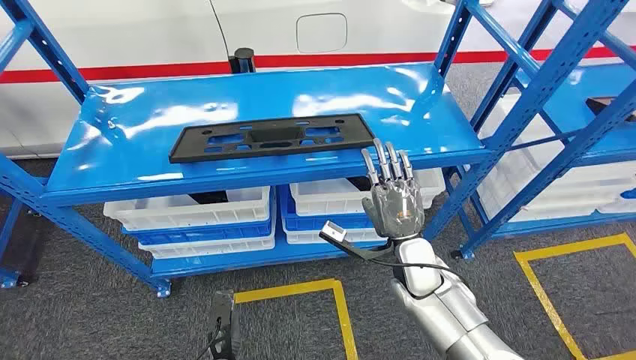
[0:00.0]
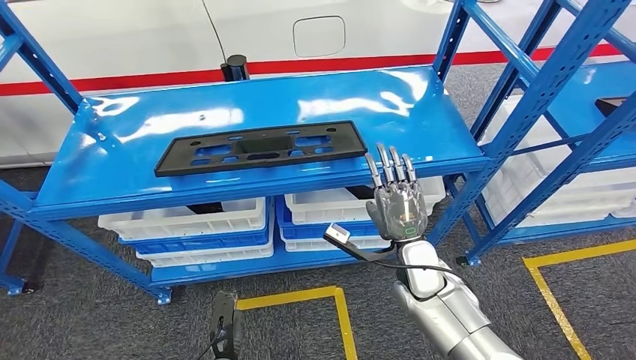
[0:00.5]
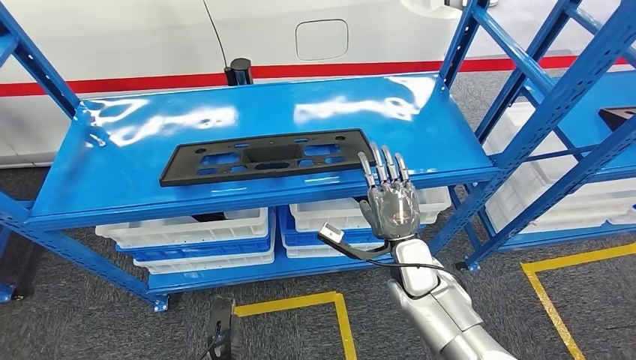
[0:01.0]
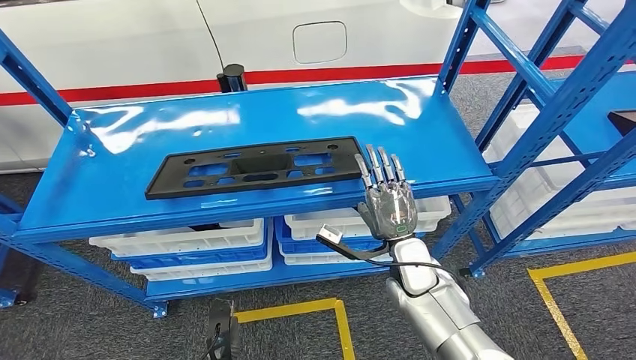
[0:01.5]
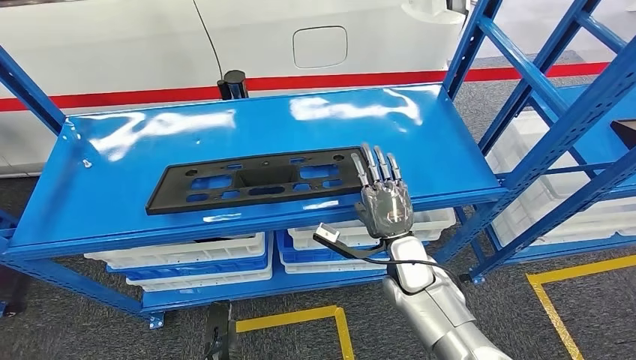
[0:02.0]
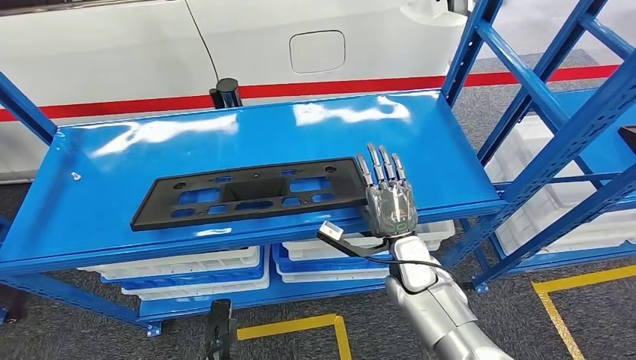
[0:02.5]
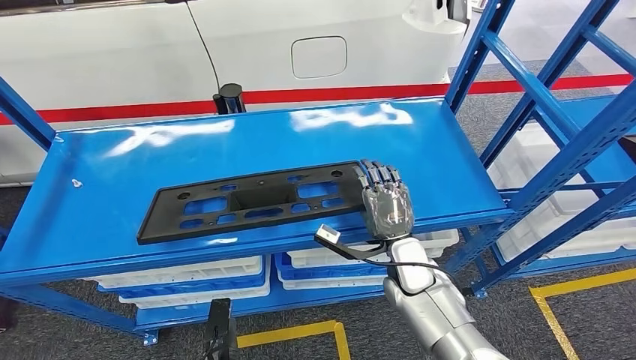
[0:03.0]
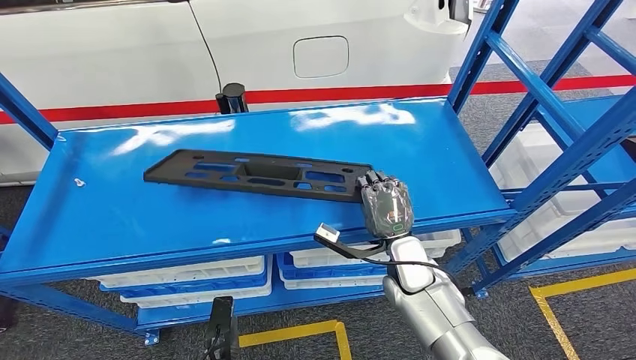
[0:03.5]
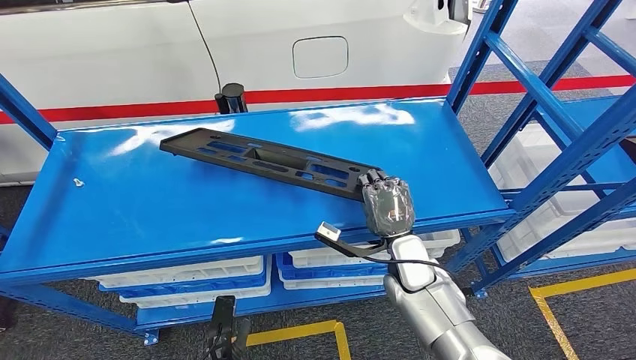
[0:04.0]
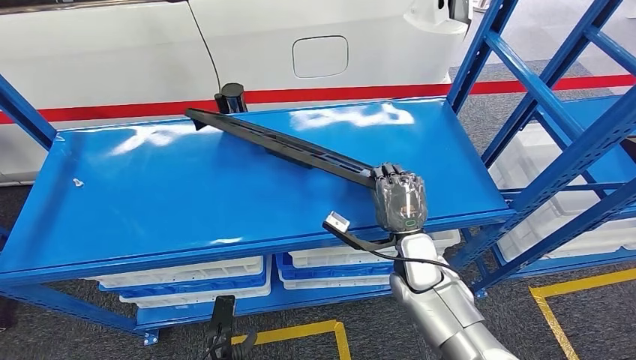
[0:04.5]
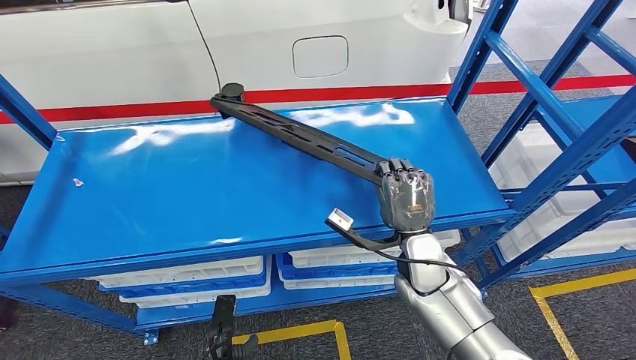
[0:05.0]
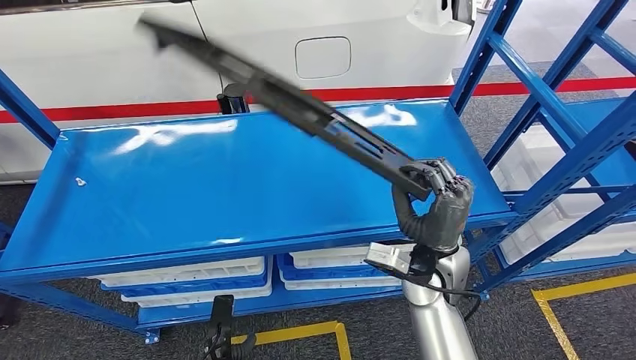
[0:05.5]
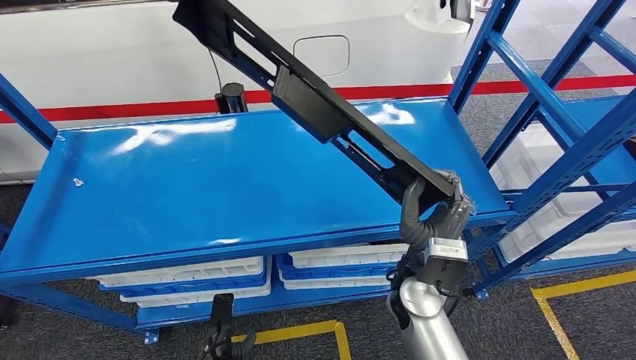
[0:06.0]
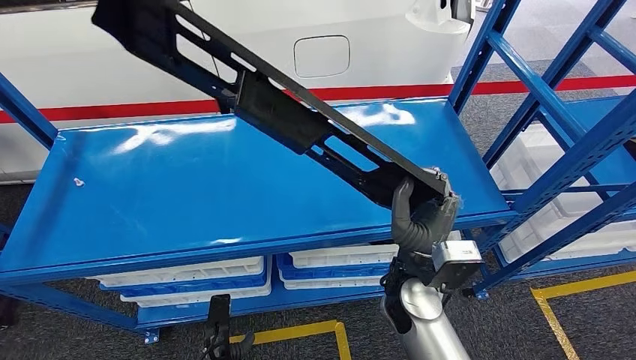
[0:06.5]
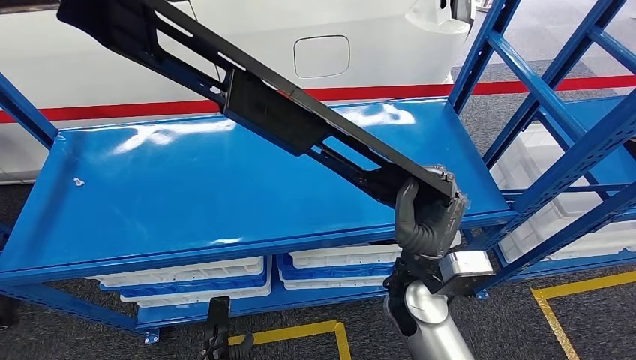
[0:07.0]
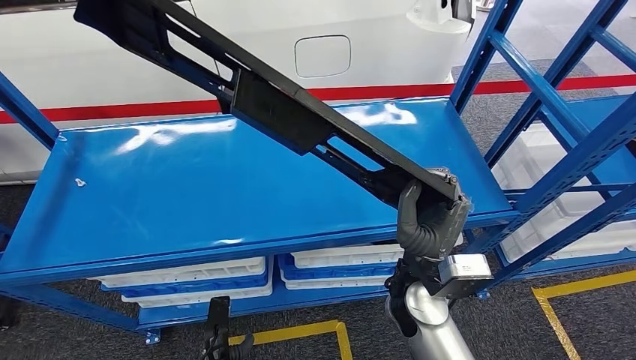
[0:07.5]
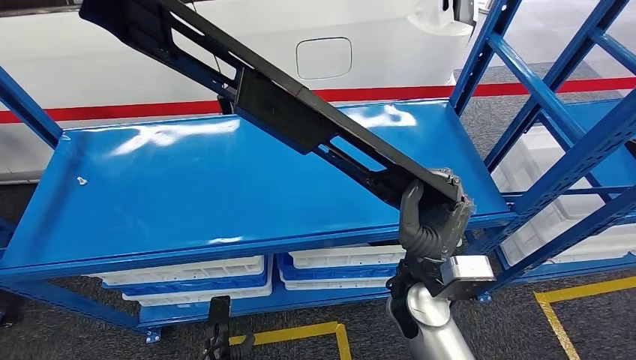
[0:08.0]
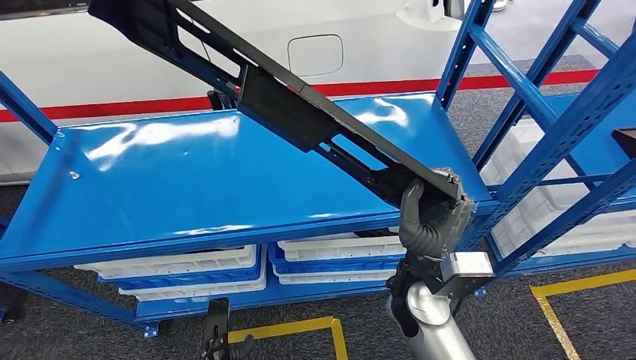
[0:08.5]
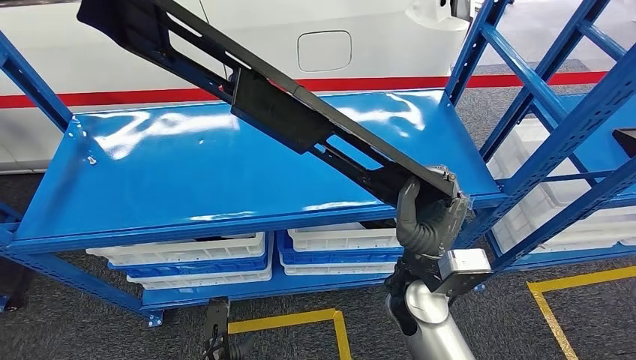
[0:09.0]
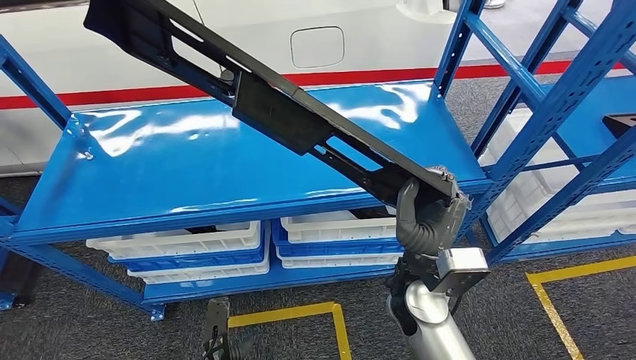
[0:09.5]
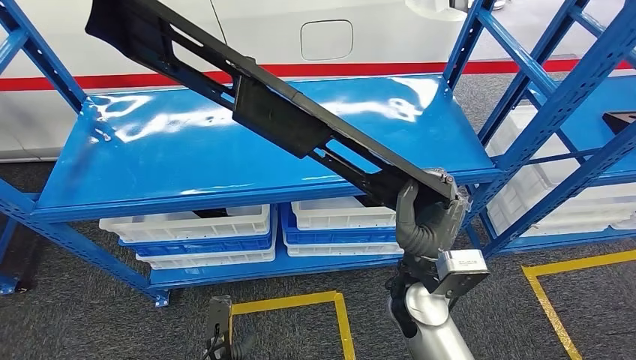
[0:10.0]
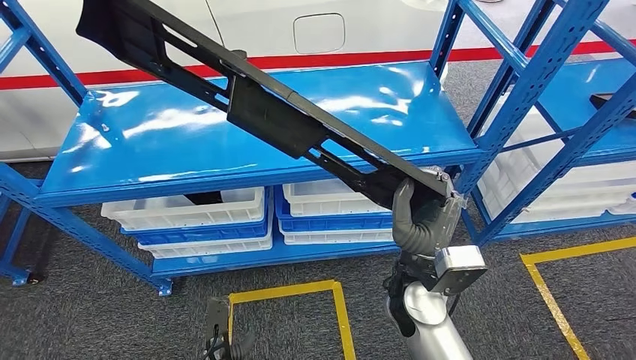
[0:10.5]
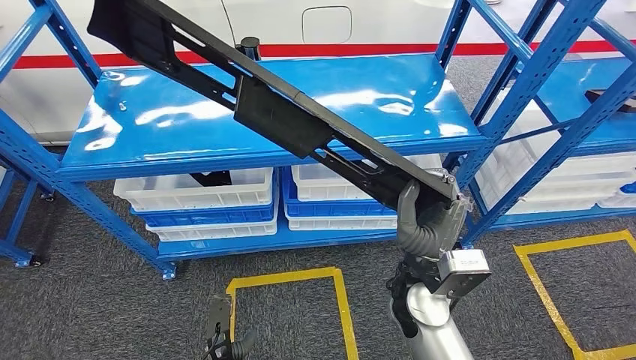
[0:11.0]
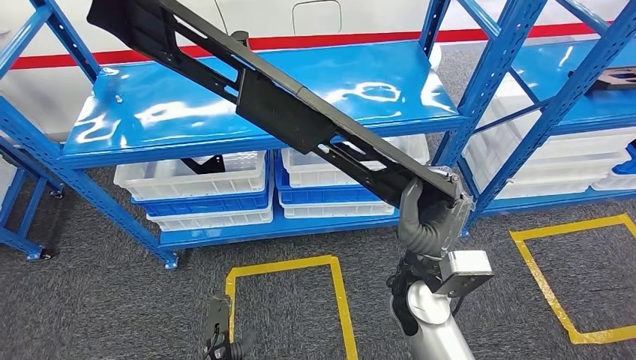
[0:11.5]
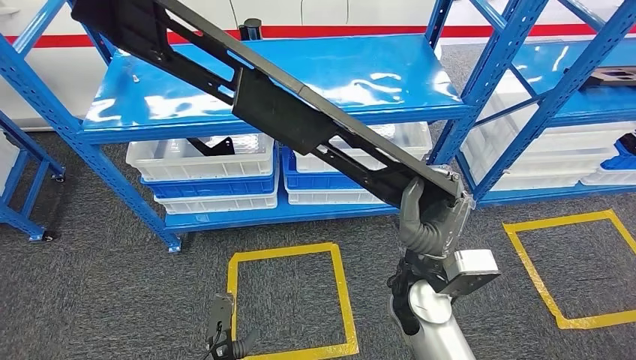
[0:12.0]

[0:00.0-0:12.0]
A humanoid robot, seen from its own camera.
Step, 0:00.0 to 0:08.0: Pick up the large material from the shelf.

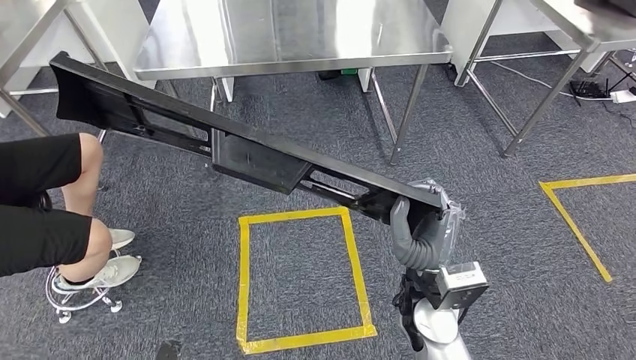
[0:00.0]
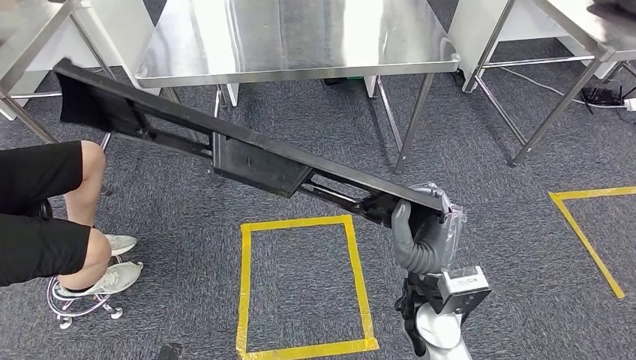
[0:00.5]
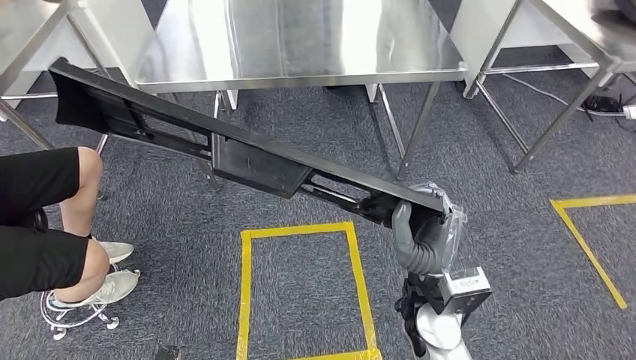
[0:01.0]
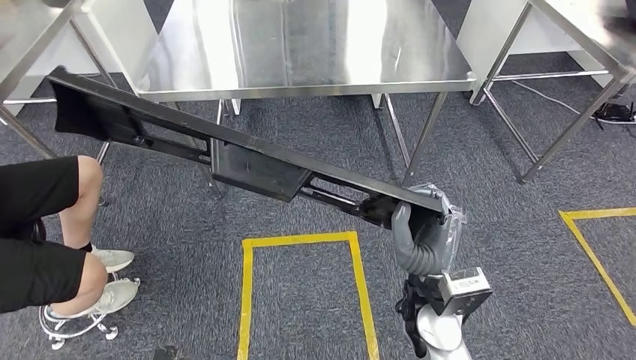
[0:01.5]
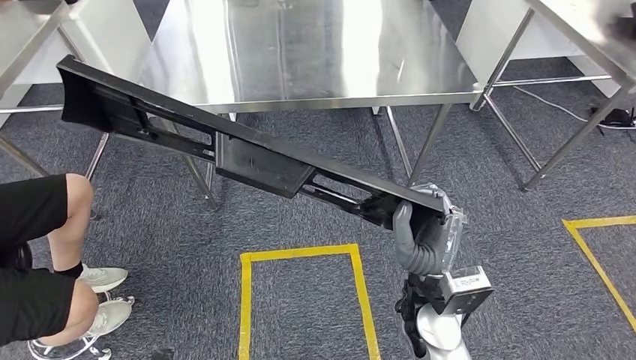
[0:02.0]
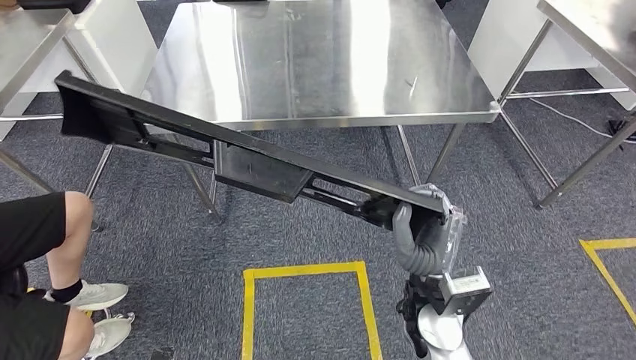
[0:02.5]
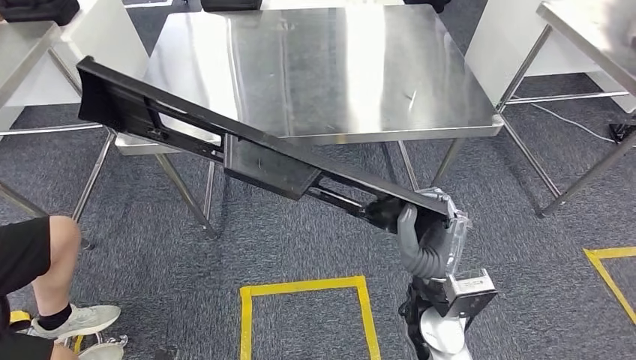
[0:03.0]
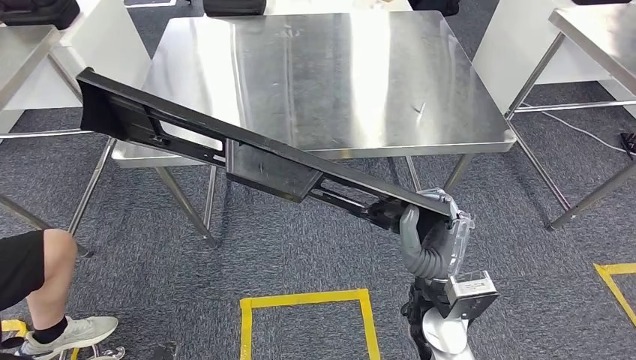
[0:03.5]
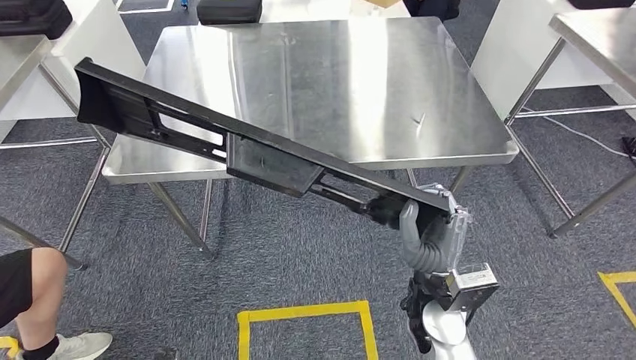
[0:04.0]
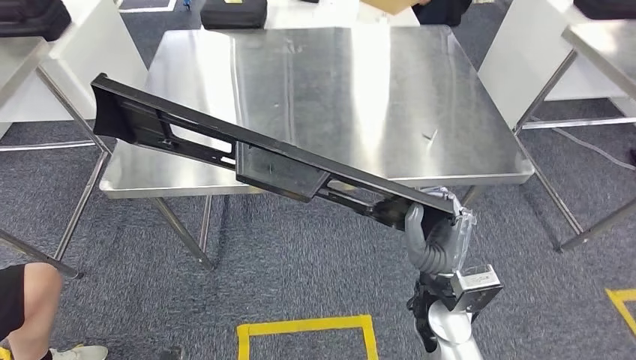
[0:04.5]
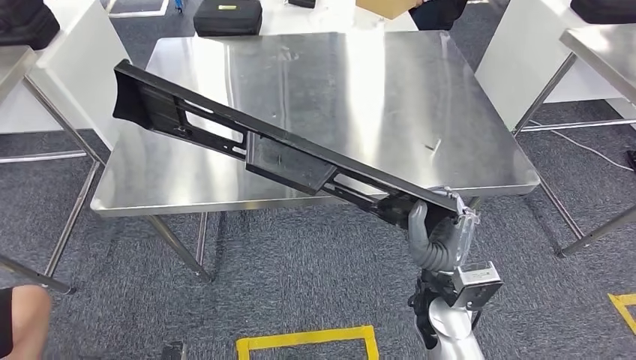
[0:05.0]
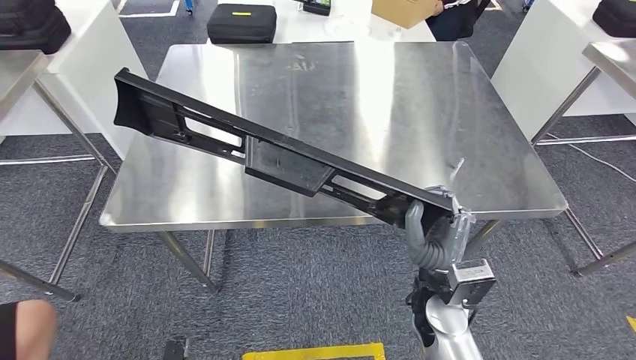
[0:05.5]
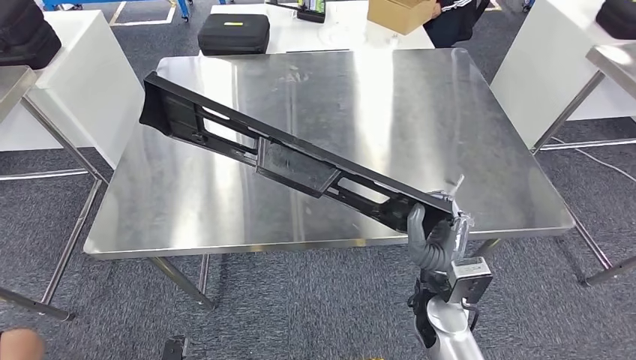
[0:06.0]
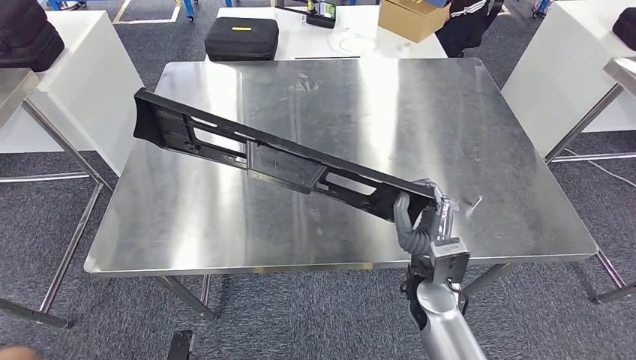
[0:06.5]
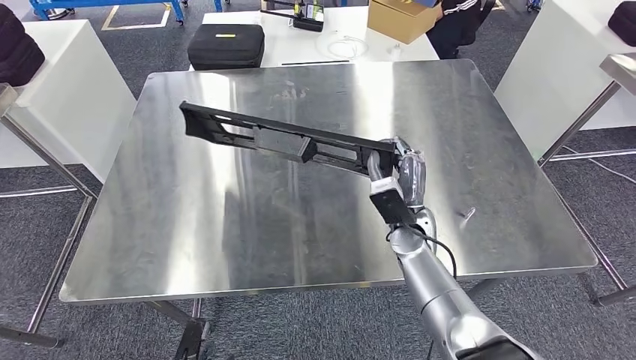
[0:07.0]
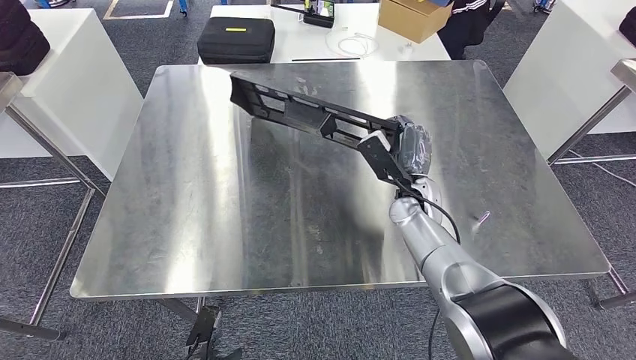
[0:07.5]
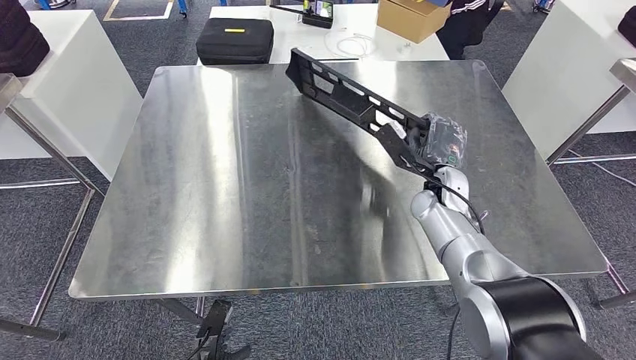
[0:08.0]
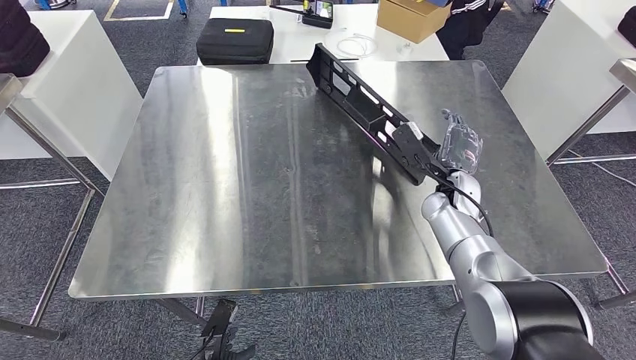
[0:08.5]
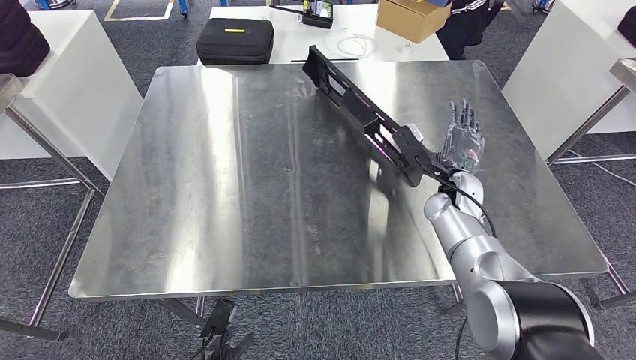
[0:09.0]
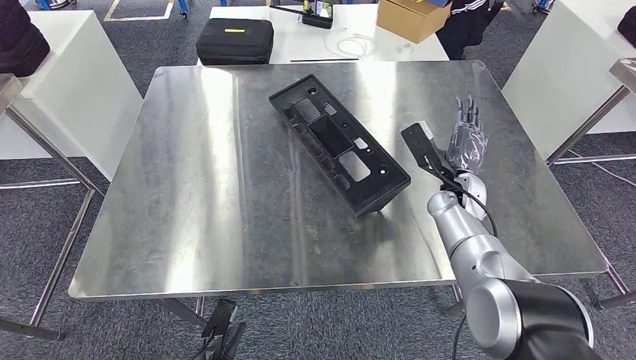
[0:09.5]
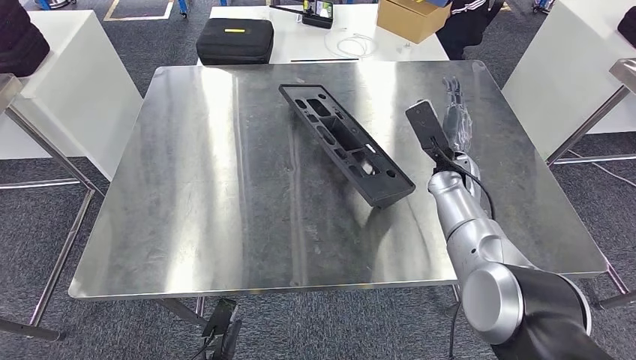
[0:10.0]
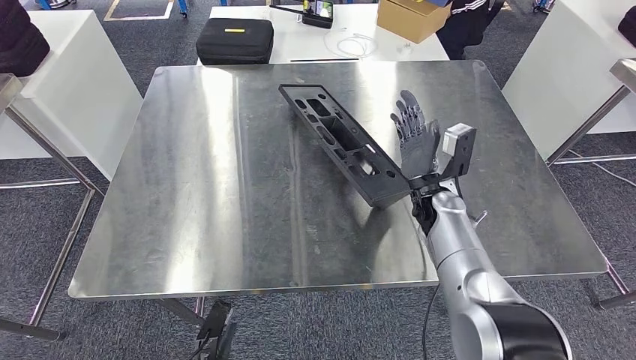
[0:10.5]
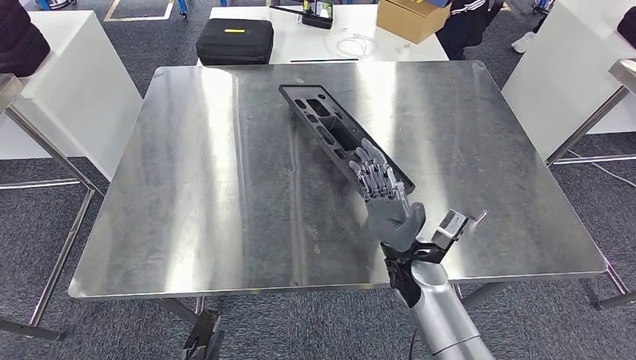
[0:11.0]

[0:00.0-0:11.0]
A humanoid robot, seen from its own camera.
0:07.5 to 0:09.0: The right hand shifts roughly 10 cm to the right.
0:09.0 to 0:11.0: The right hand travels backward and to the left by some 15 cm.
